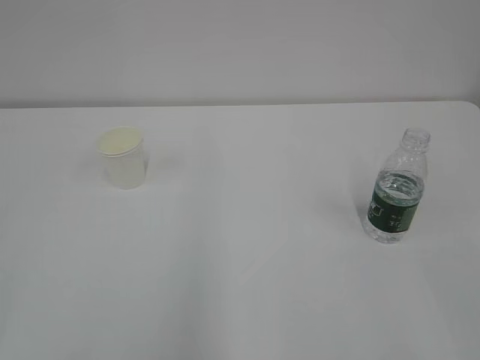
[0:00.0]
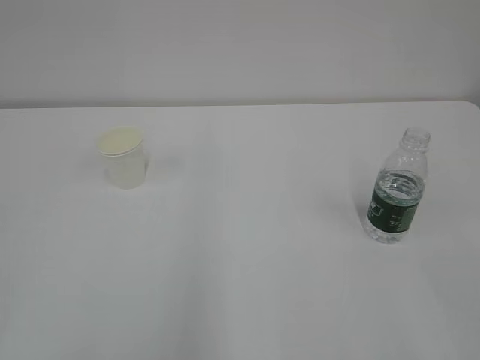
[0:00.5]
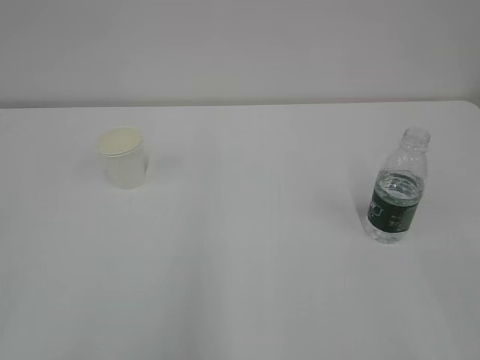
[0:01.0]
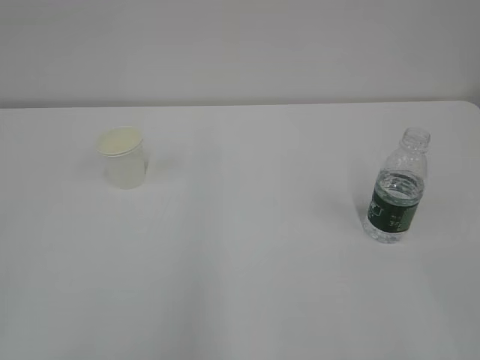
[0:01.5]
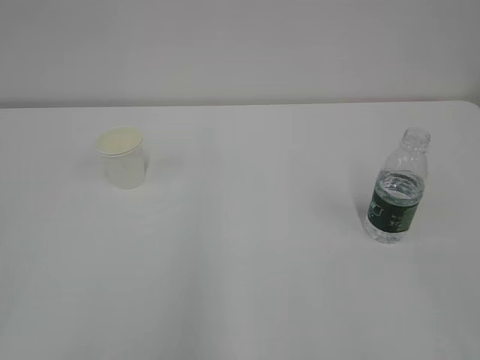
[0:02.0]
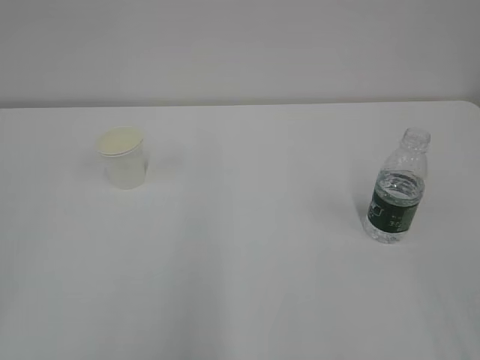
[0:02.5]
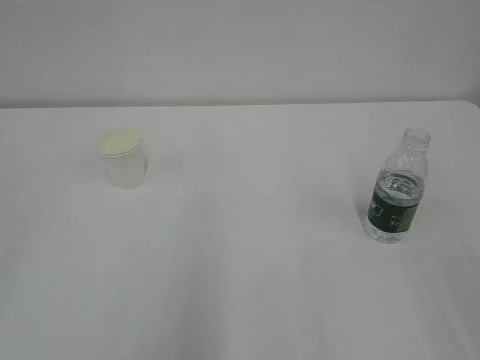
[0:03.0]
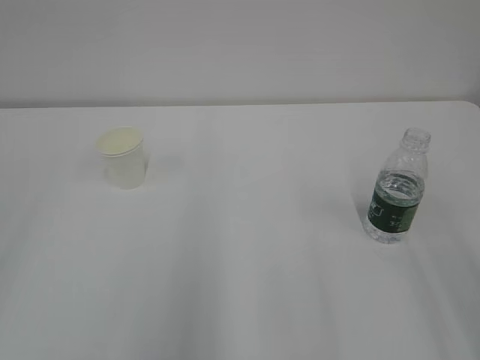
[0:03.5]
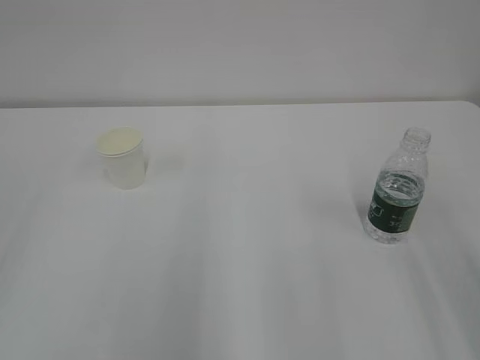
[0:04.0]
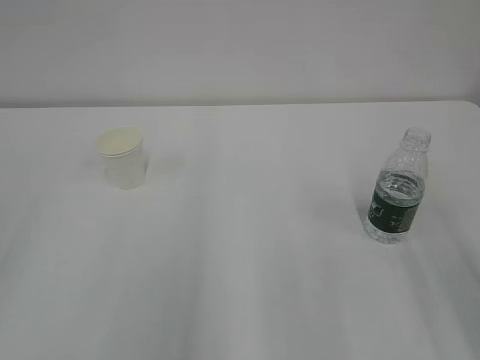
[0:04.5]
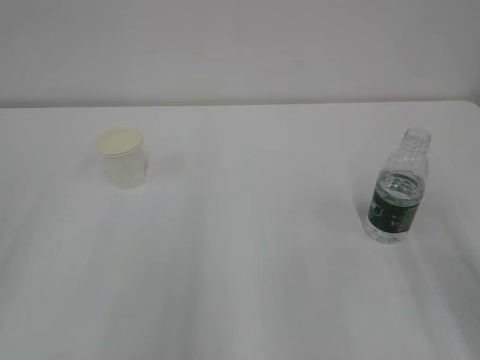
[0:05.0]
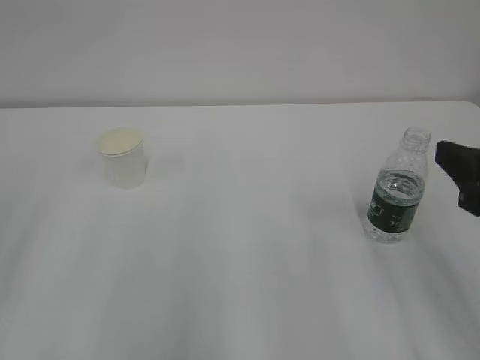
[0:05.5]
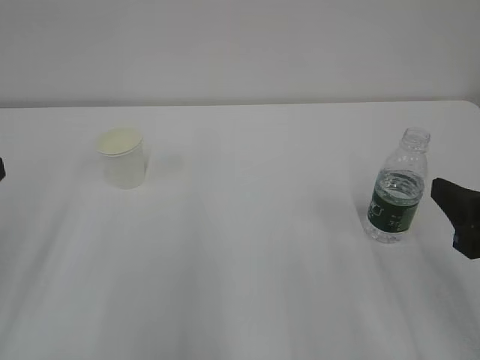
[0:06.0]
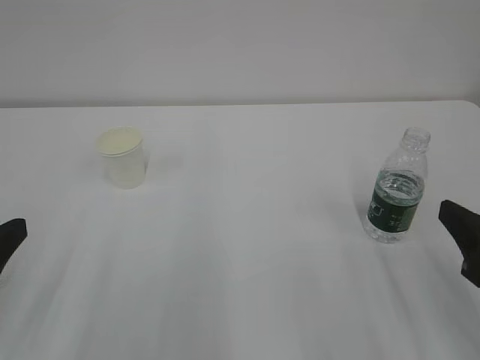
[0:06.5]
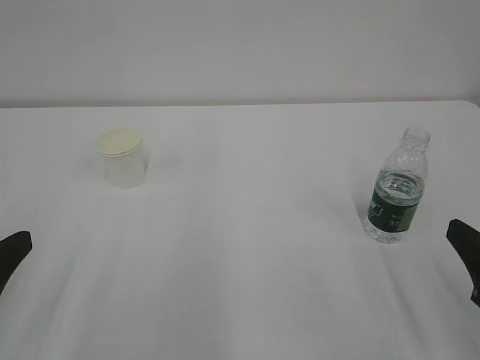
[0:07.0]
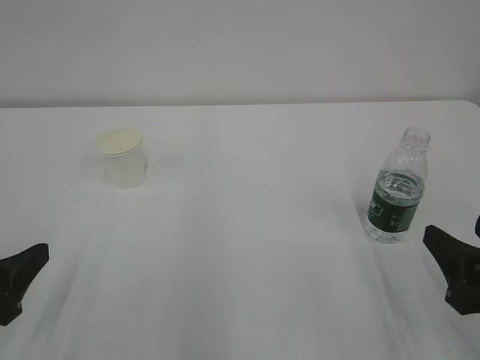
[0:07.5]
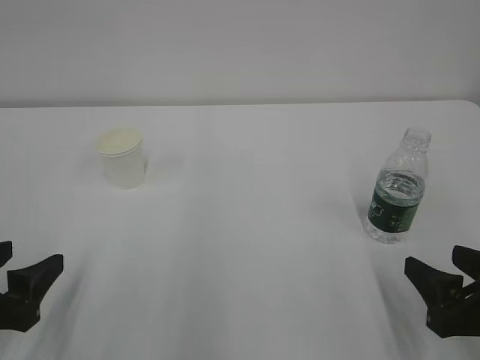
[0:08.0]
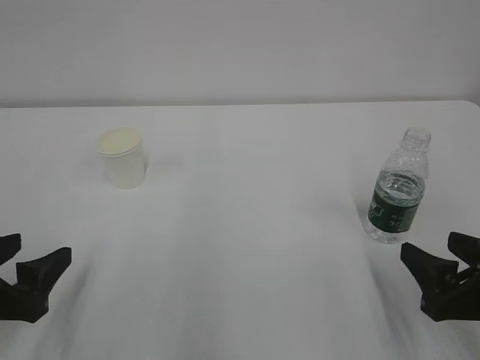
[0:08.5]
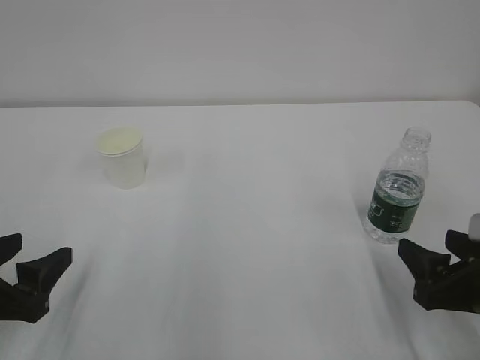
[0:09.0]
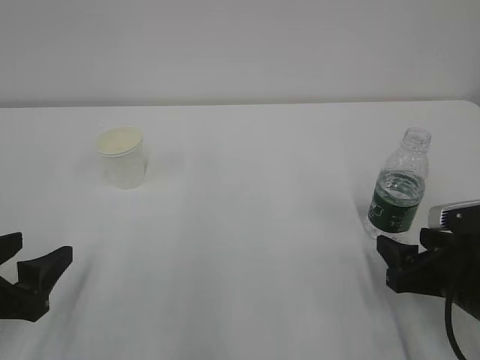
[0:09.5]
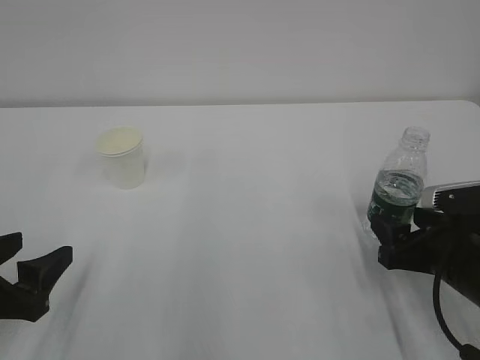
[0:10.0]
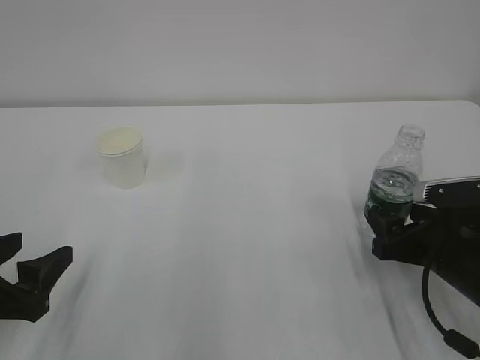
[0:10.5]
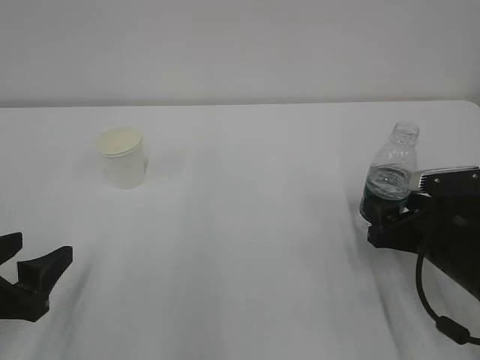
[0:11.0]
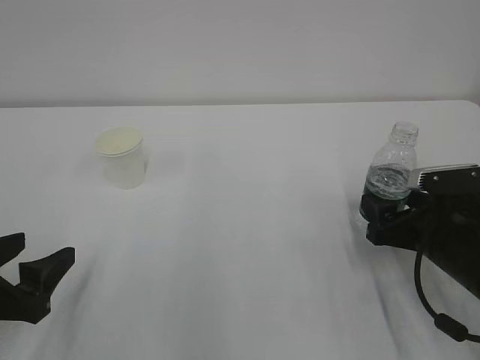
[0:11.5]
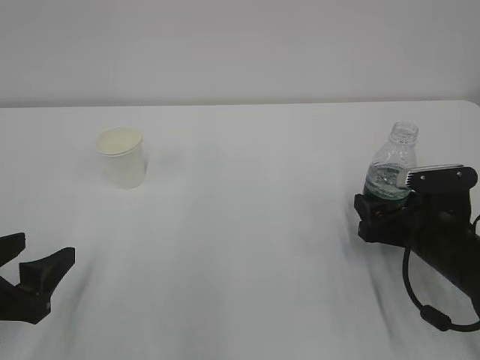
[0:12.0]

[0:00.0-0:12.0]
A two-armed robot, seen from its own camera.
0:04.0 to 0:06.0: The right gripper moves downward and forward, approximately 10 cm.
0:06.0 to 0:08.0: Both grippers travel together downward, about 10 cm.
0:08.0 to 0:10.0: The right gripper heads forward, covering about 10 cm.
0:10.0 to 0:12.0: The right gripper opens.

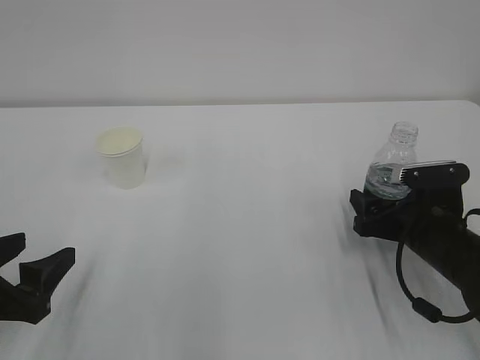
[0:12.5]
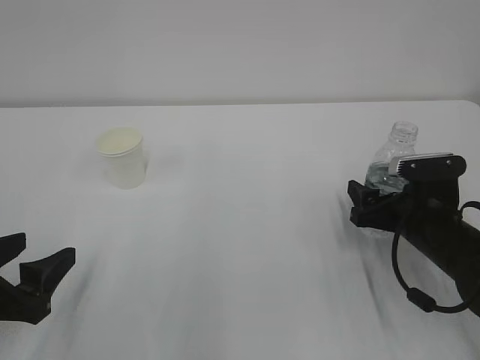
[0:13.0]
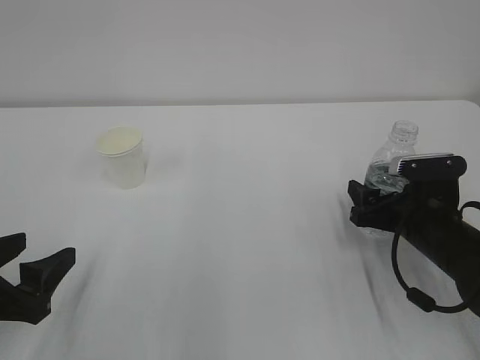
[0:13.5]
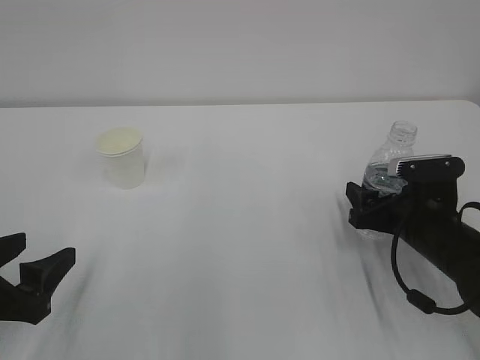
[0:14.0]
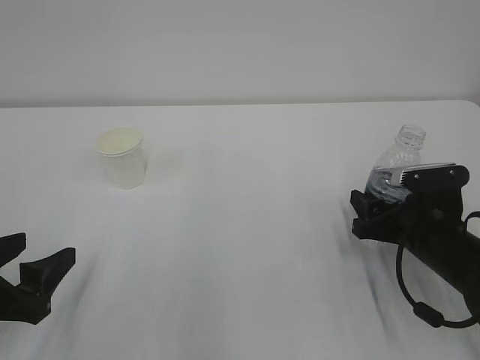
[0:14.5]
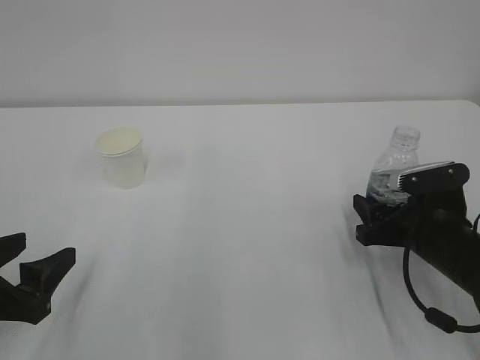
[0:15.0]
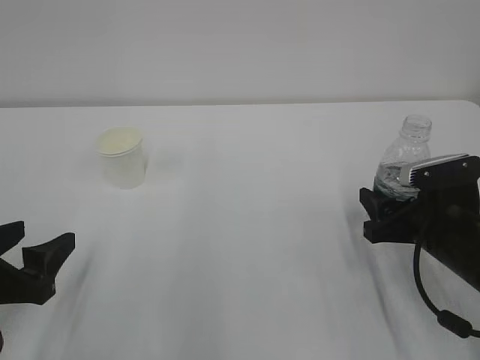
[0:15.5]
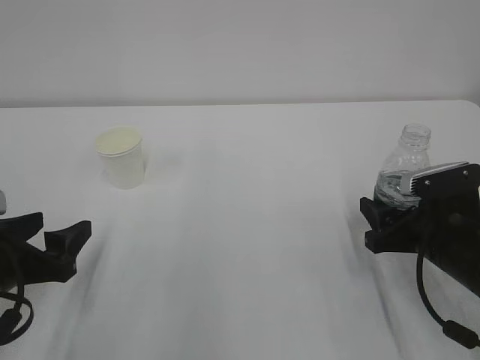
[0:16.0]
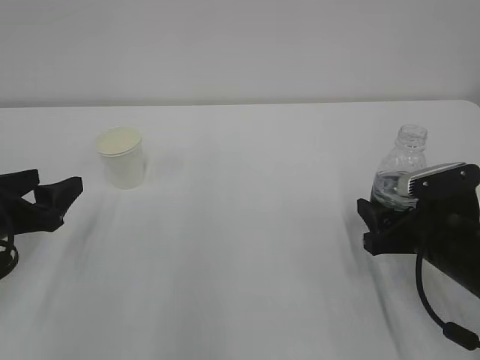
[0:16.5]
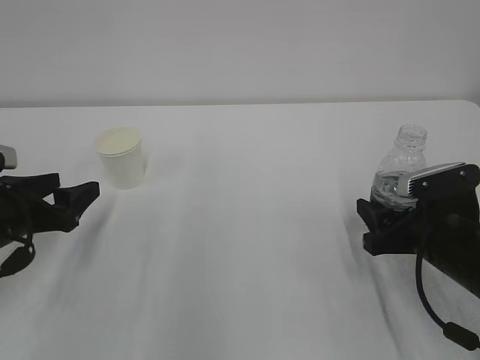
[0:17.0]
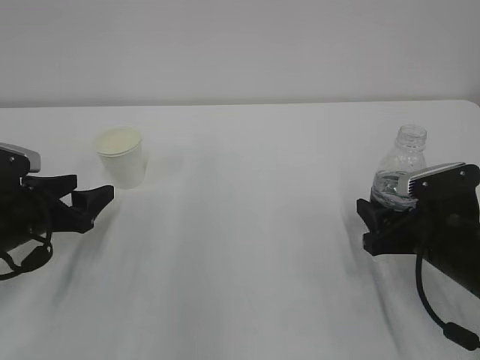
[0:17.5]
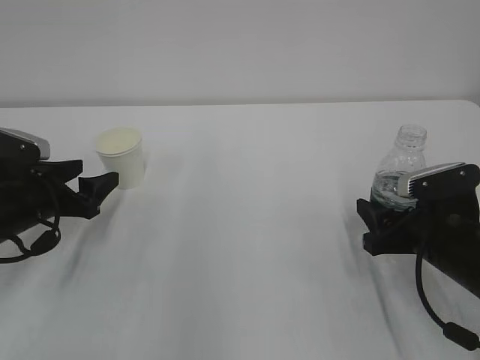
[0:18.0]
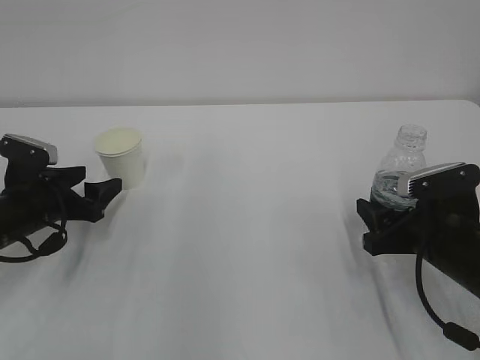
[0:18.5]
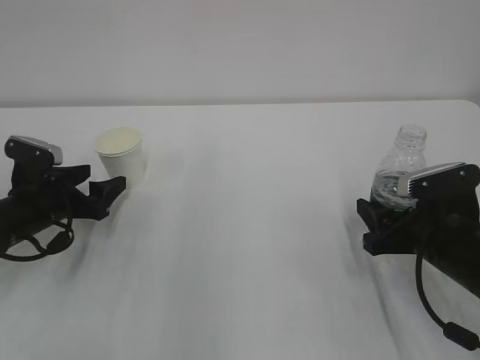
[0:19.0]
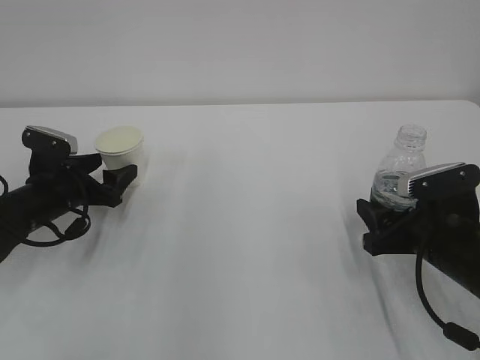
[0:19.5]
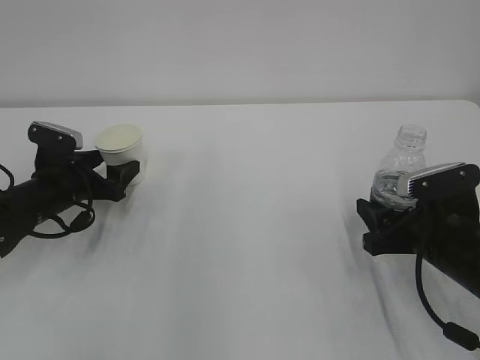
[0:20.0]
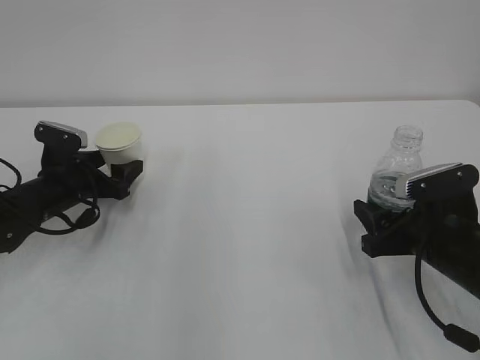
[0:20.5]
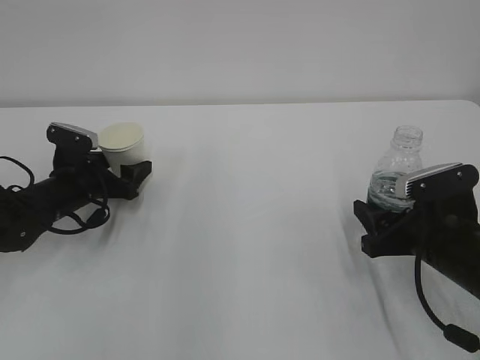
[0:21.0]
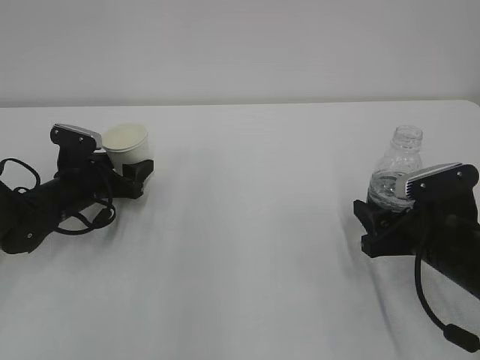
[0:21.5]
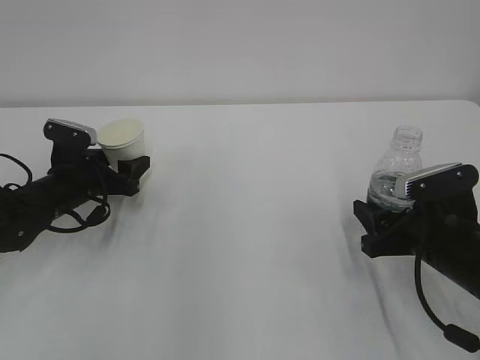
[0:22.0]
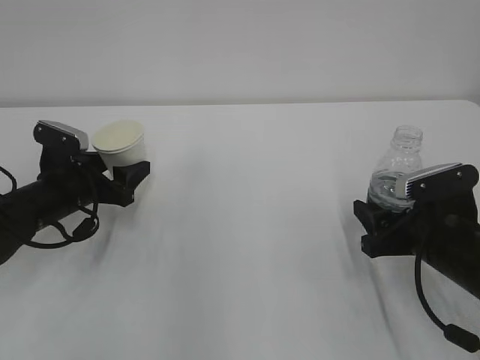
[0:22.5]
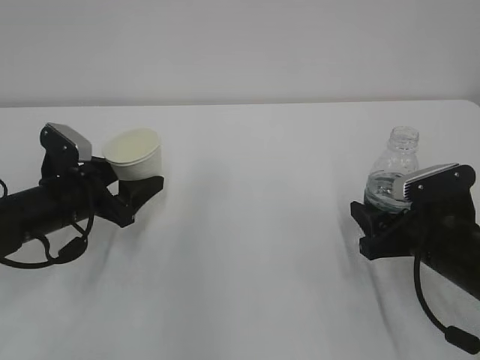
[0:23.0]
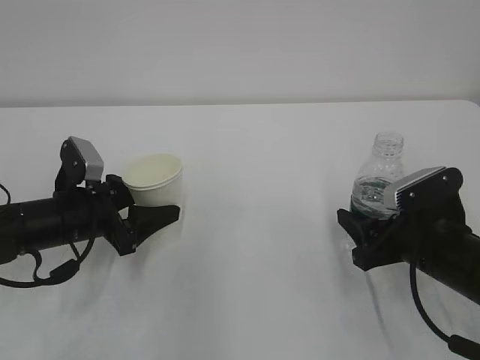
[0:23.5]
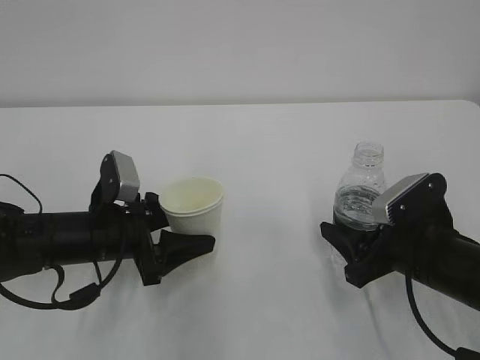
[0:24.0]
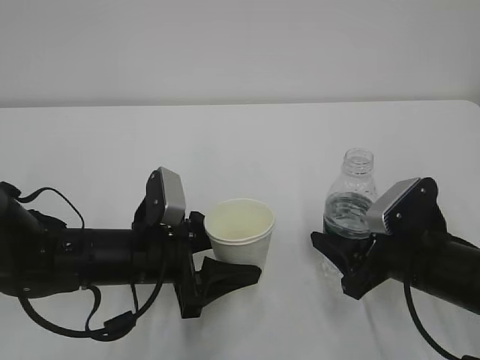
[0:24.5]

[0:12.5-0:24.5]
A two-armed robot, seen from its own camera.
0:12.5 to 0:14.5: The right gripper closes.
0:14.5 to 0:16.5: The left gripper is displaced forward by approximately 10 cm.
0:16.5 to 0:18.5: The left gripper moves forward and downward, roughly 10 cm.
0:18.5 to 0:20.5: The left gripper shifts some 5 cm forward.
0:20.5 to 0:22.5: The left gripper closes up.
0:22.5 to 0:24.5: The left gripper heads to the right and backward, covering about 15 cm.

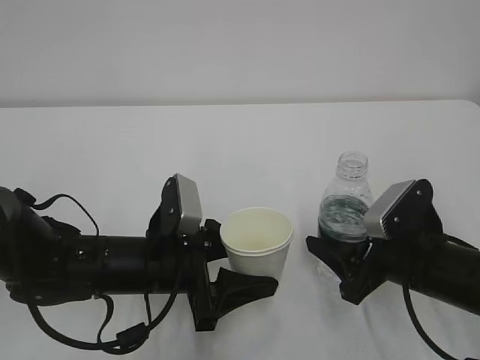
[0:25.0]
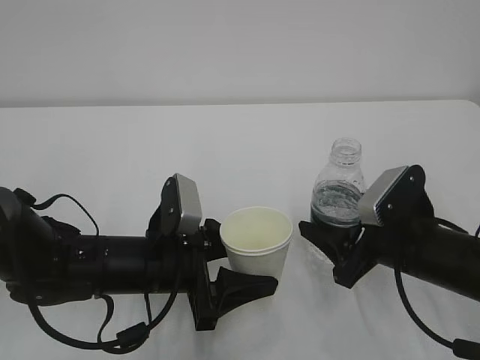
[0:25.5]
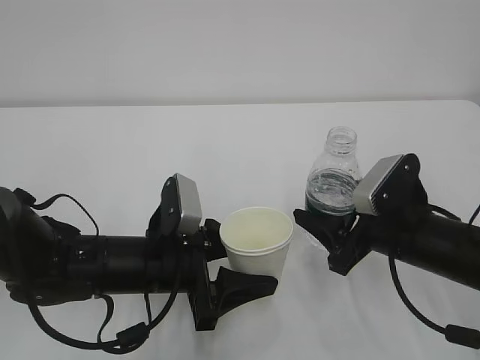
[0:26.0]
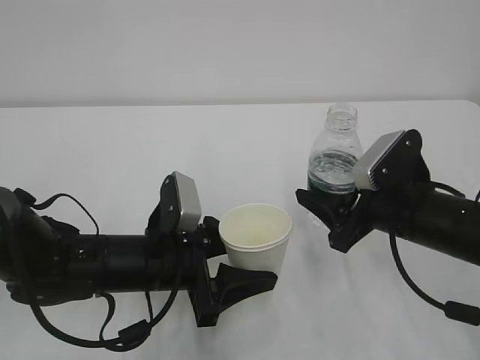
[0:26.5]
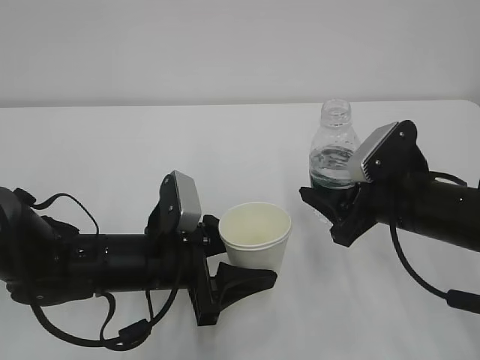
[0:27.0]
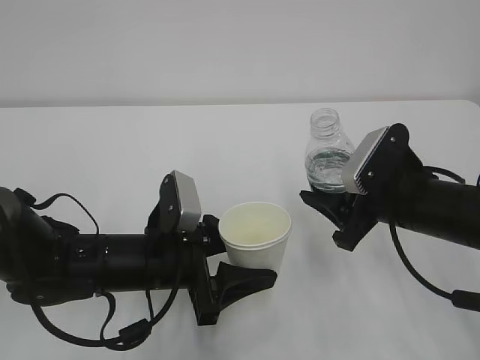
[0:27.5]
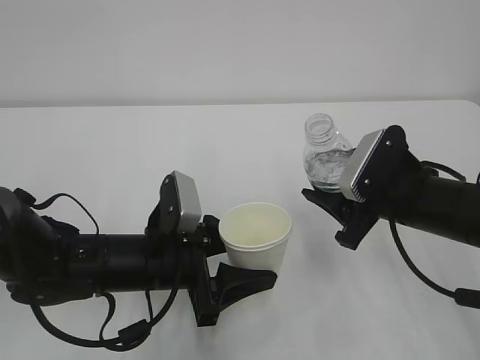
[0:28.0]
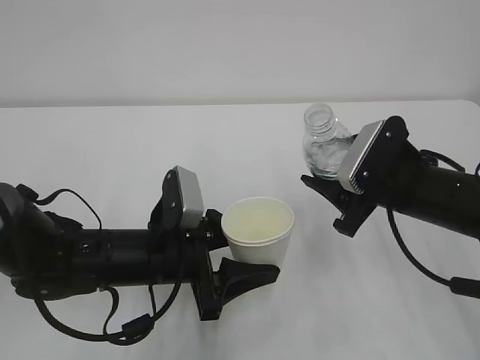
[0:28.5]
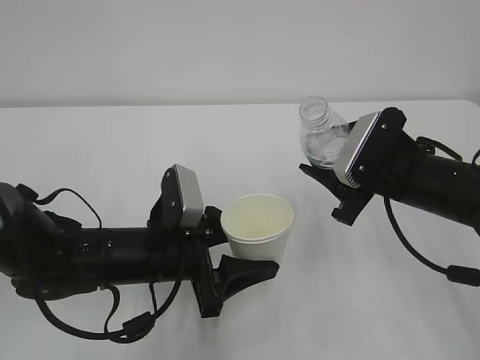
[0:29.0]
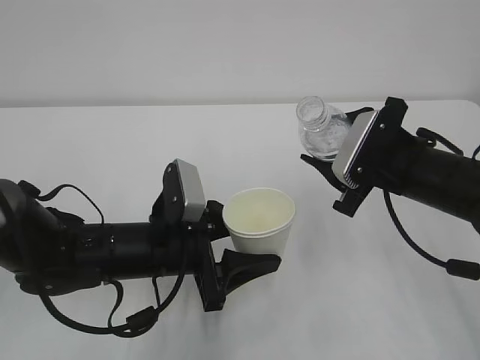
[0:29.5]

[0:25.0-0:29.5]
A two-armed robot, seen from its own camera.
0:25.0 to 0:27.0: The right gripper changes place by roughly 5 cm.
